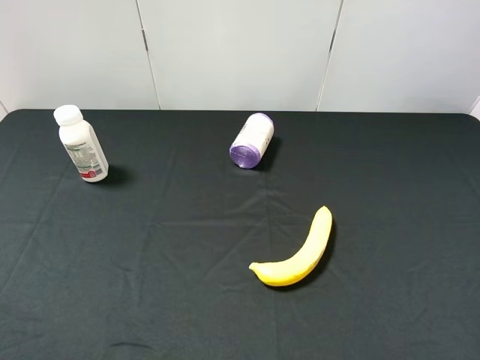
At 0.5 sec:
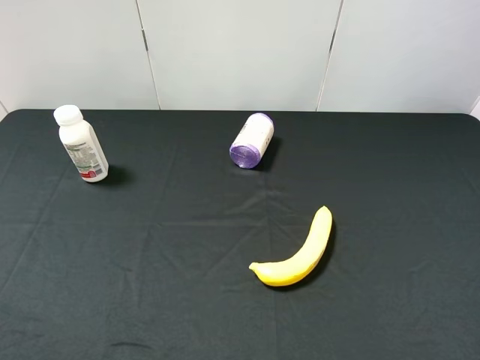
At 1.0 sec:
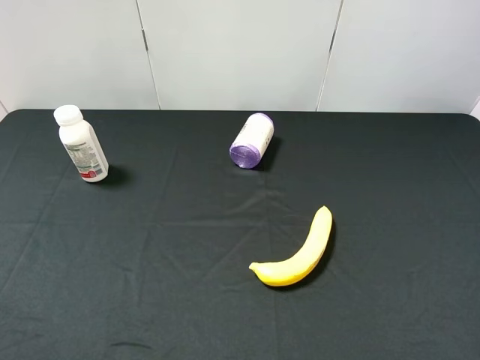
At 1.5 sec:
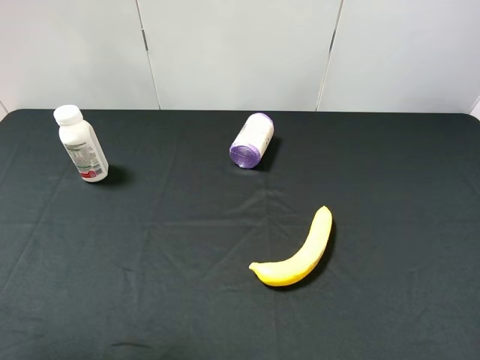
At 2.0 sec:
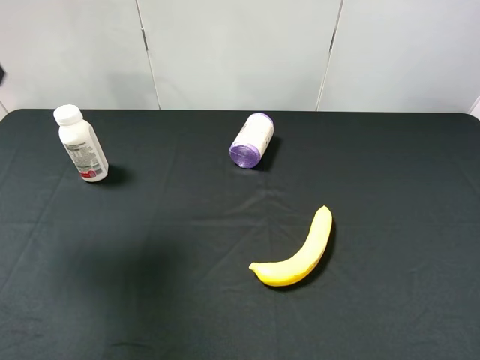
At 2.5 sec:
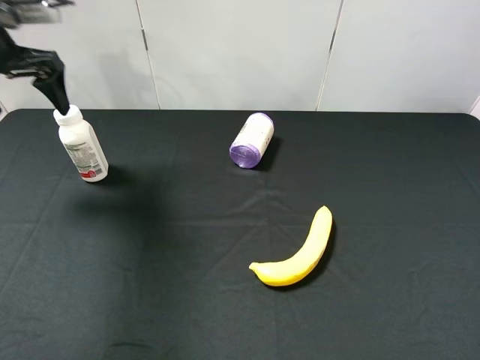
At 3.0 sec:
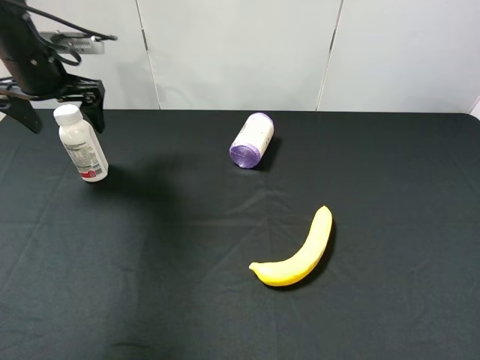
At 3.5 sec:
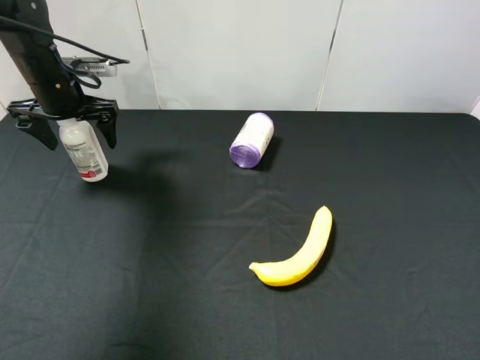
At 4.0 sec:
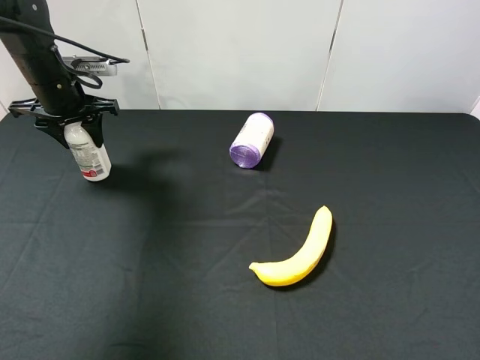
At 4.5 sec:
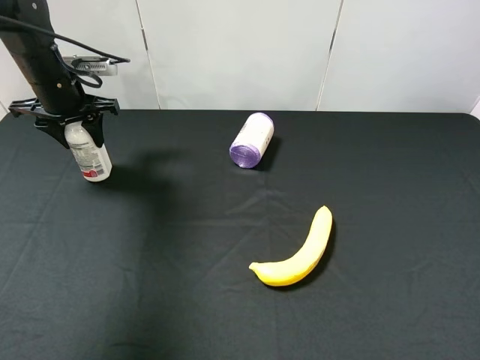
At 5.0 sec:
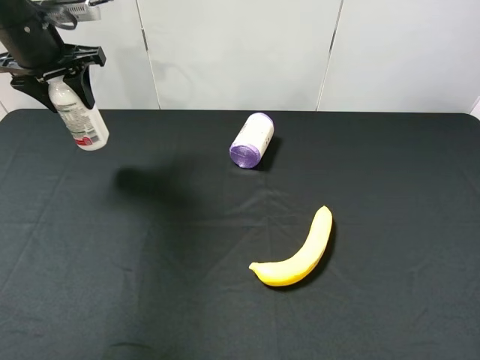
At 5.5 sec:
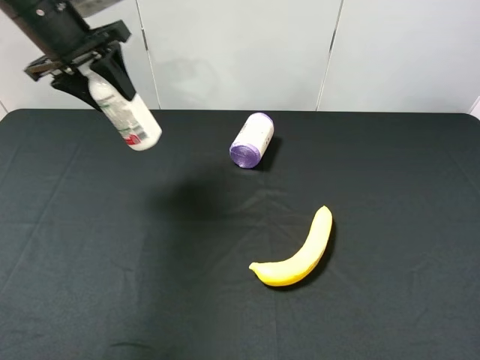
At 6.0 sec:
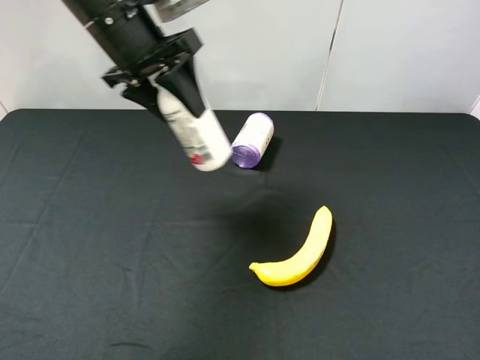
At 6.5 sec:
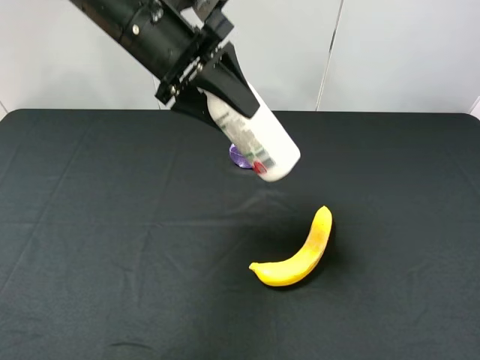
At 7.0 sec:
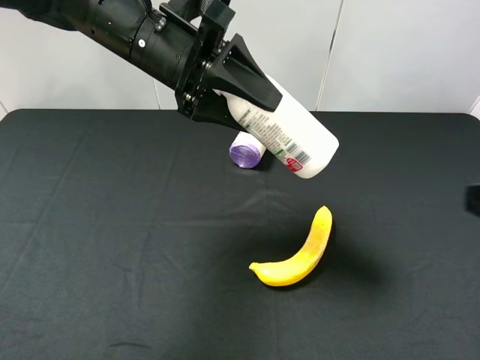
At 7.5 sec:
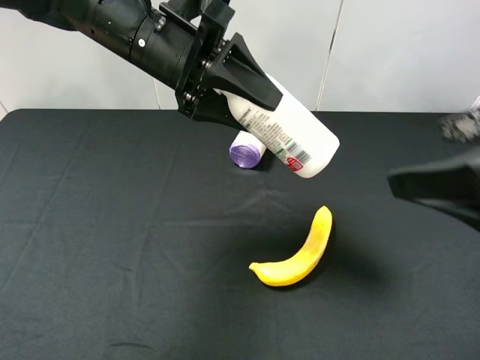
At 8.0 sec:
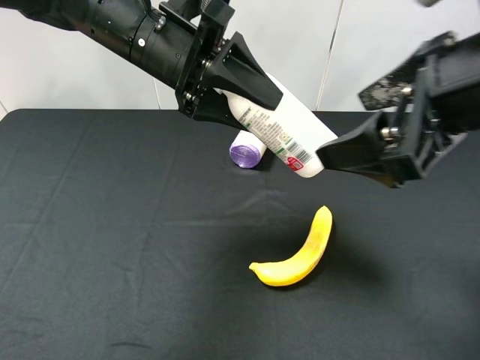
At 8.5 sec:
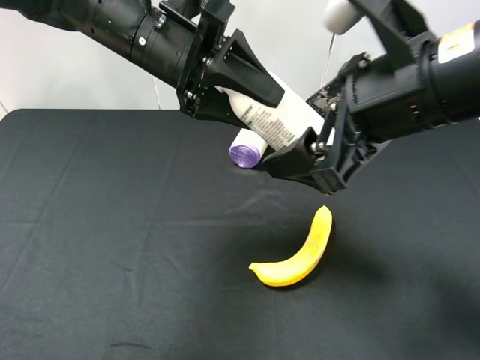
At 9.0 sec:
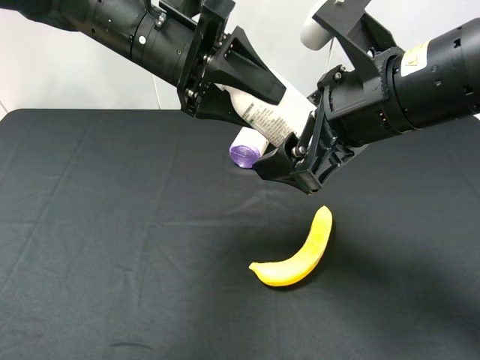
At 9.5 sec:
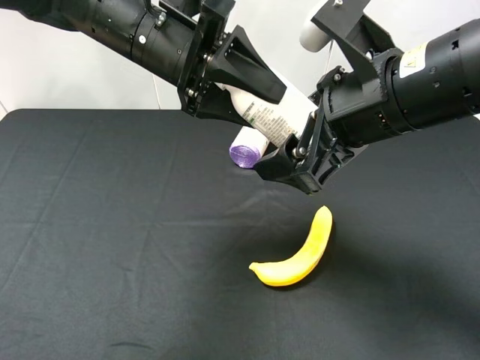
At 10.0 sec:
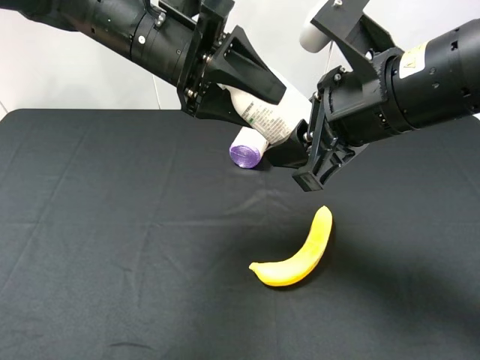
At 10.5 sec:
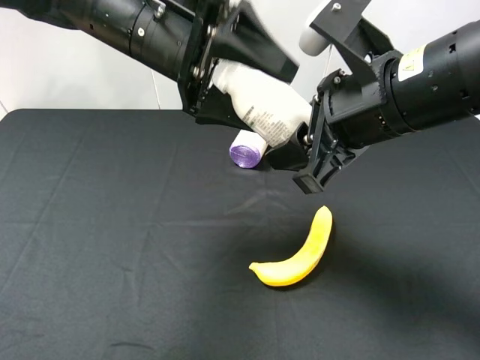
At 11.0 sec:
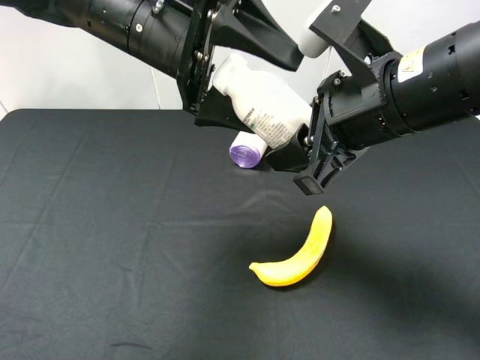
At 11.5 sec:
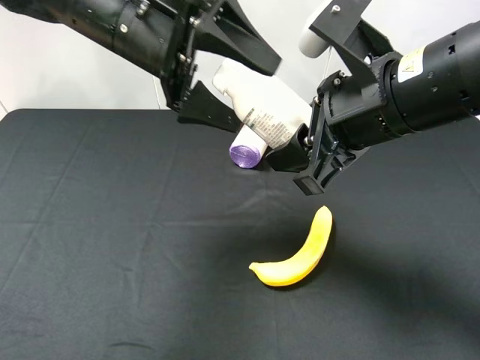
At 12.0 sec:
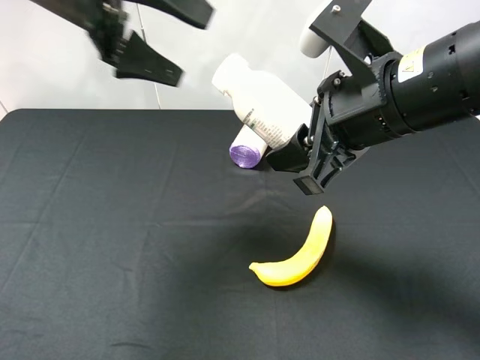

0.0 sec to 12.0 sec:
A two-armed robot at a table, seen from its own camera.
Task of the whole recording: use the left gripper to pick up the item and transfer it from the left gripper to the right gripper.
0.0 sec to 2.0 sec: The left gripper goes about 30 cm forward.
2.0 sec to 4.0 sec: The left gripper heads downward and forward, covering roughly 20 cm, and closes.
4.0 sec to 6.0 sec: The left gripper goes some 20 cm to the right, upward and backward.
6.0 sec to 8.0 sec: The right gripper moves forward and to the left, approximately 20 cm. Meanwhile the left gripper changes place by some 5 cm.
8.0 sec to 10.0 sec: The right gripper ends up some 5 cm from where it was, and closes.
10.0 sec to 12.0 sec: The left gripper goes roughly 10 cm to the left and upward, and opens its fingers.

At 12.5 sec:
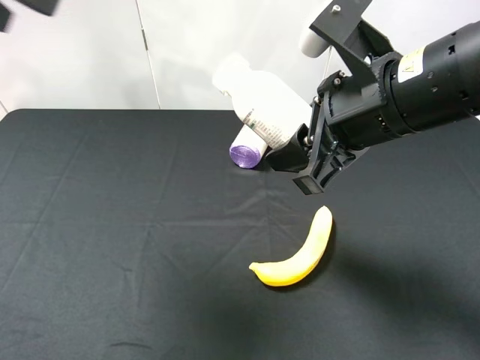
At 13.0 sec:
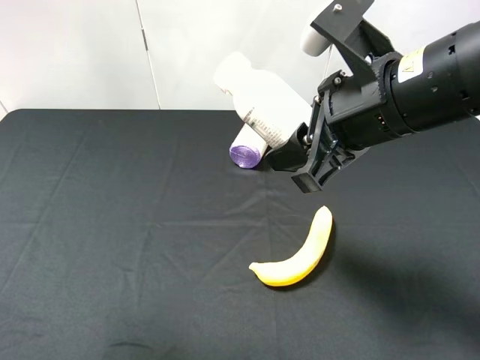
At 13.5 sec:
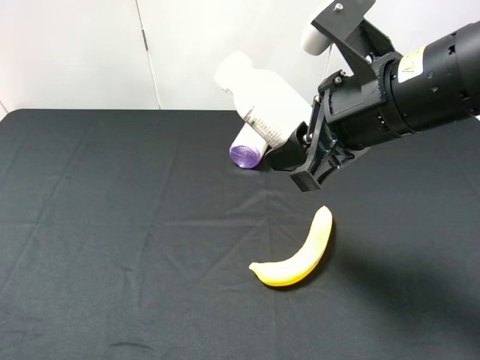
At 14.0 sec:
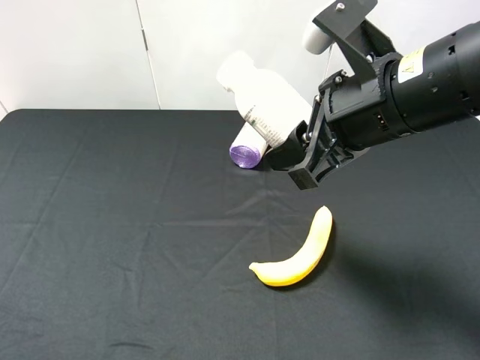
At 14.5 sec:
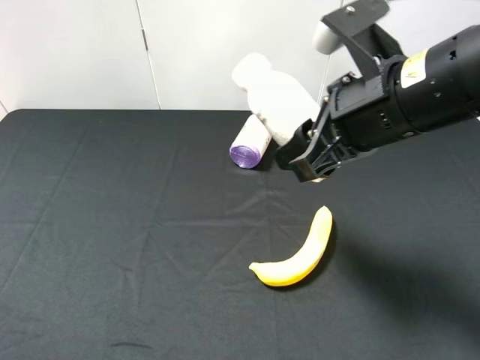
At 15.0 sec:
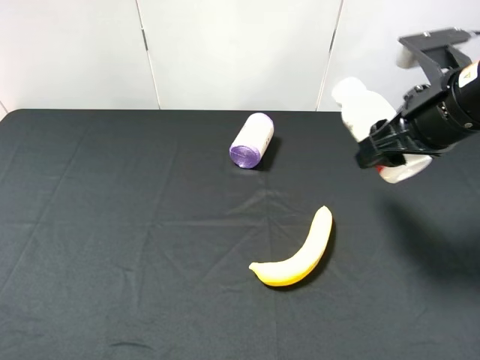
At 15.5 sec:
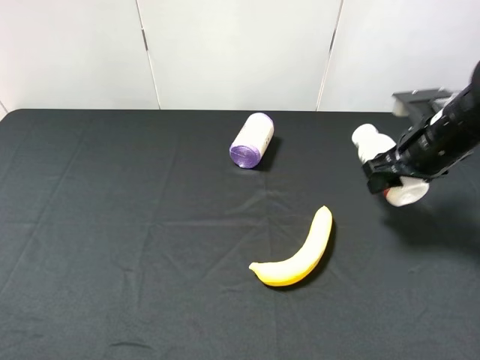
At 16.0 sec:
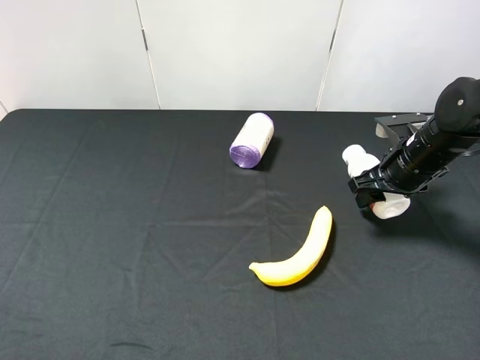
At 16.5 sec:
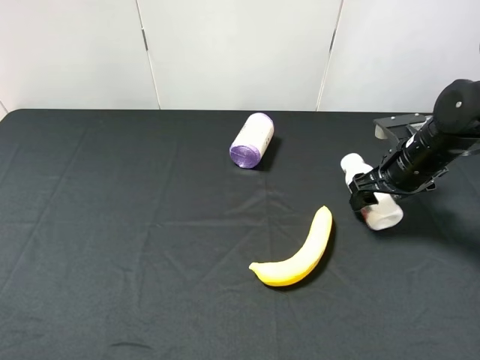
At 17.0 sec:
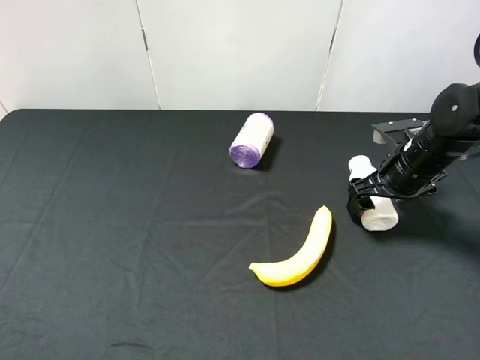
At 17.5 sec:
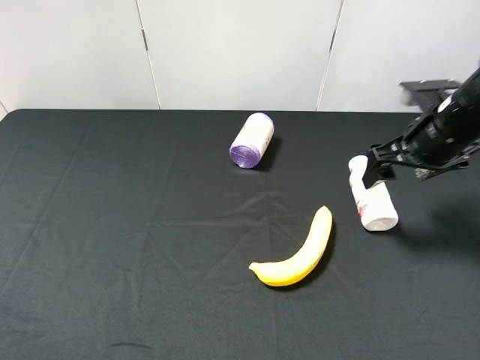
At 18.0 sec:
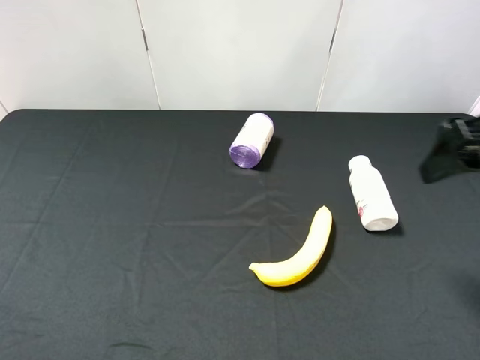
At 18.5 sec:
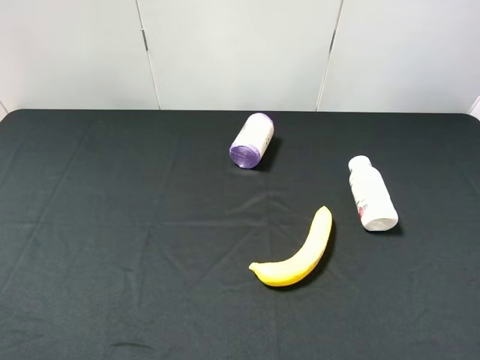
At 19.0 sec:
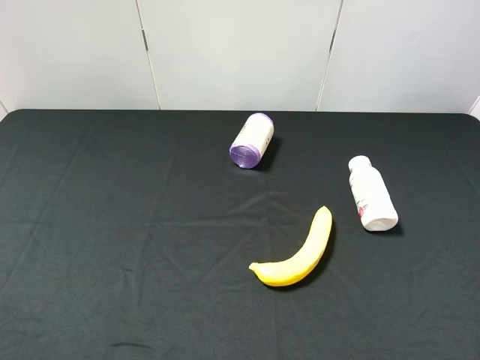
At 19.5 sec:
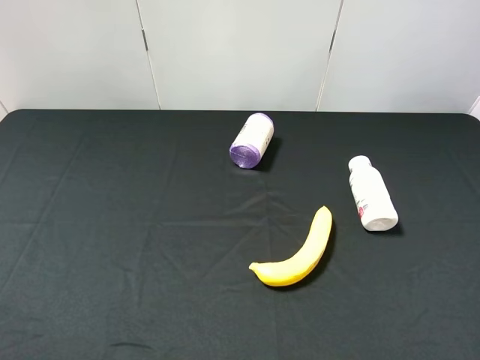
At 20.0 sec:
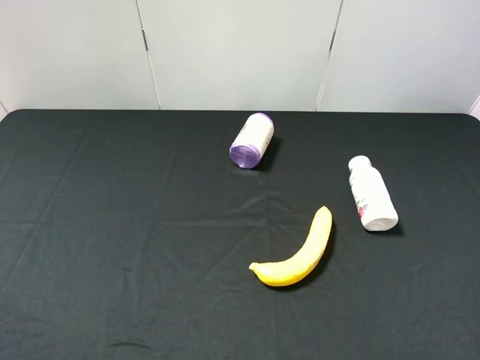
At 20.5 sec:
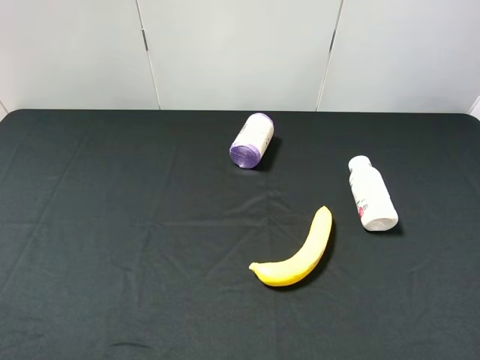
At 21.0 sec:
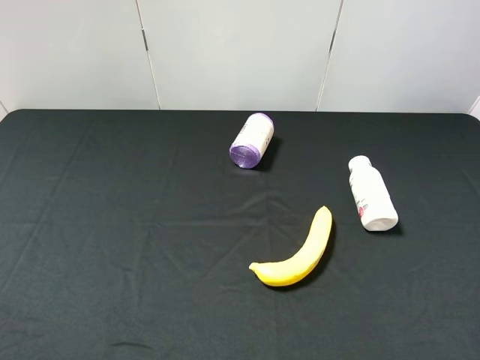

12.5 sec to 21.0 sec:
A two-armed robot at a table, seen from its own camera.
Task of the whole recording: use the left gripper to pick up the item and transfer it from the left gripper to the right gripper.
12.5 sec to 14.5 sec: The left gripper heads backward and downward, covering approximately 25 cm.
14.5 sec to 16.5 sec: The right gripper is displaced downward, to the right and forward by about 20 cm, and opens its fingers.
16.5 sec to 19.0 sec: The right gripper goes approximately 35 cm backward and upward.
